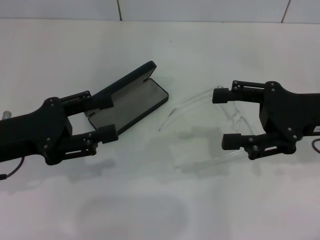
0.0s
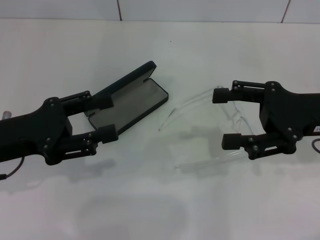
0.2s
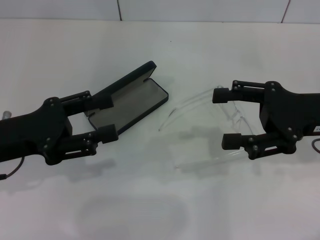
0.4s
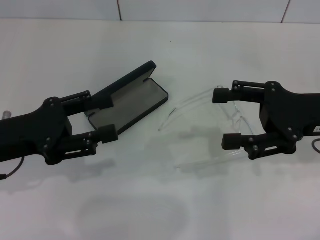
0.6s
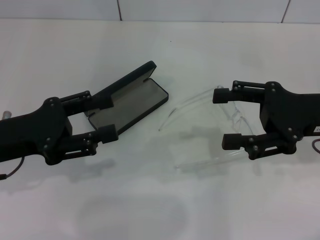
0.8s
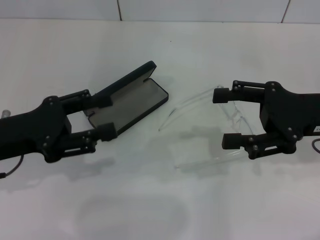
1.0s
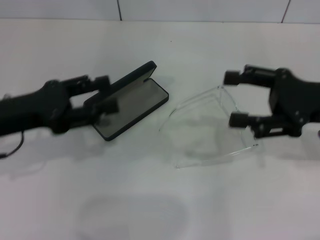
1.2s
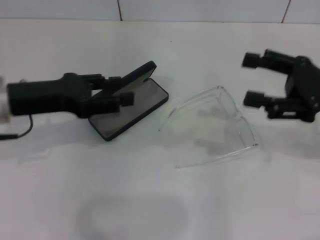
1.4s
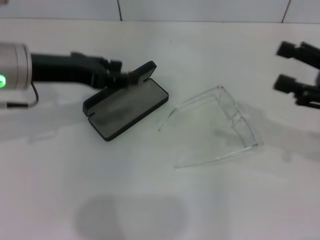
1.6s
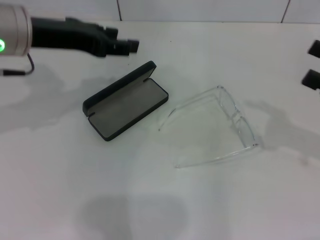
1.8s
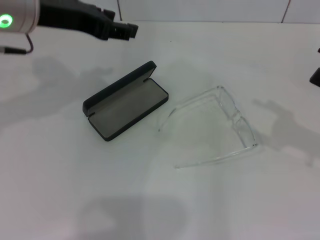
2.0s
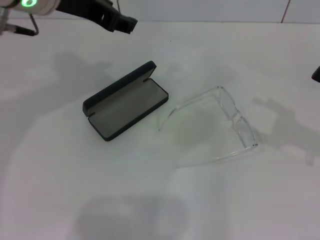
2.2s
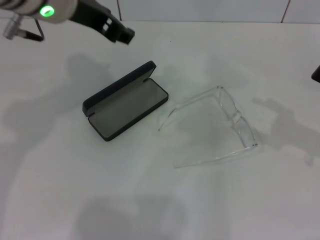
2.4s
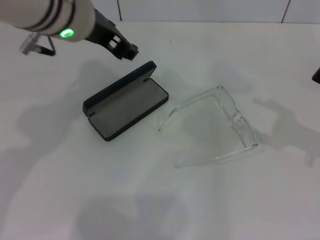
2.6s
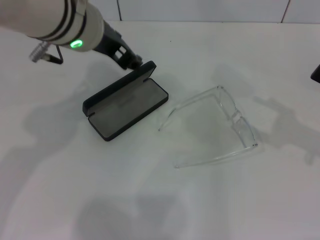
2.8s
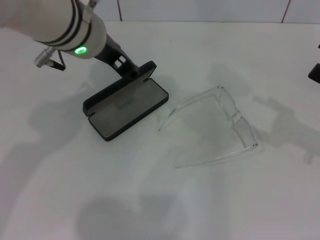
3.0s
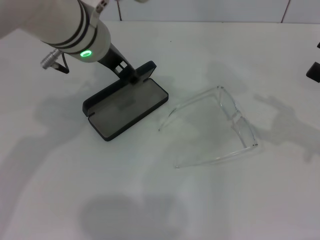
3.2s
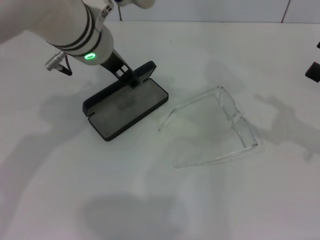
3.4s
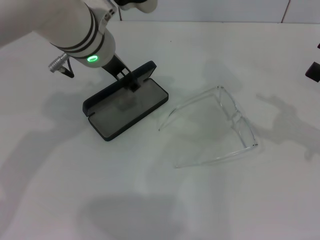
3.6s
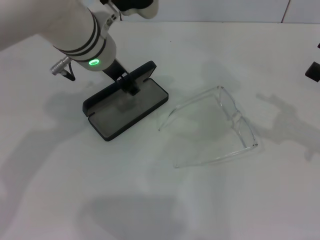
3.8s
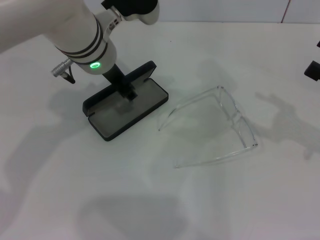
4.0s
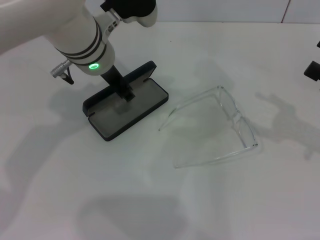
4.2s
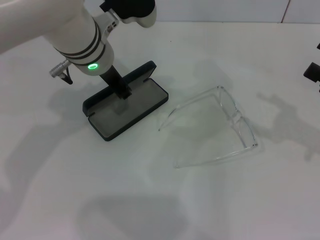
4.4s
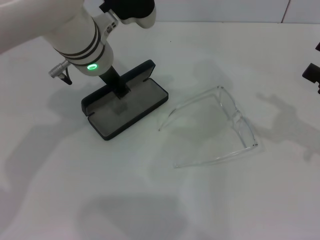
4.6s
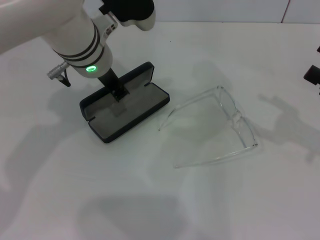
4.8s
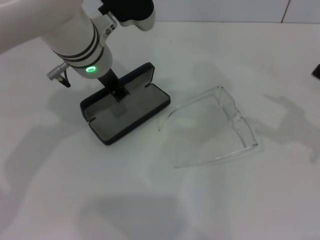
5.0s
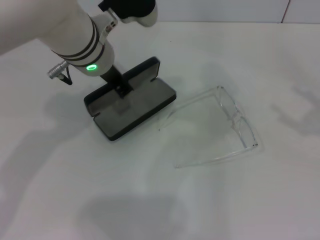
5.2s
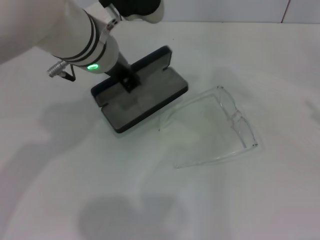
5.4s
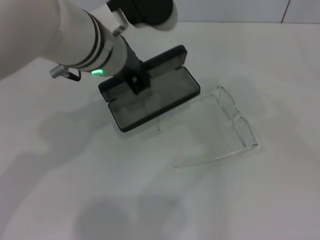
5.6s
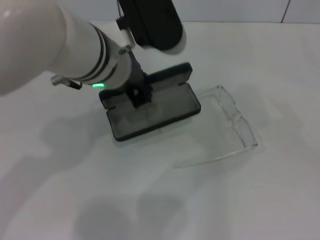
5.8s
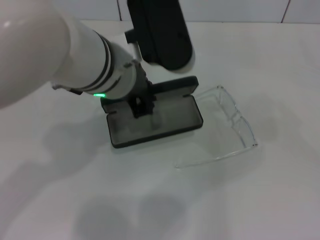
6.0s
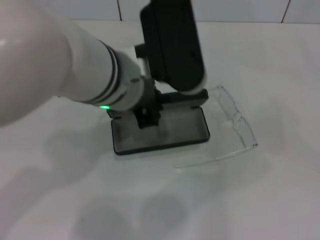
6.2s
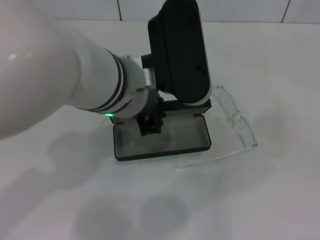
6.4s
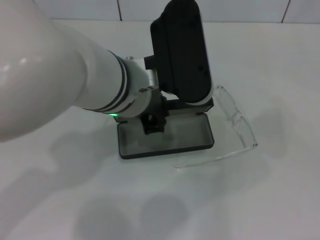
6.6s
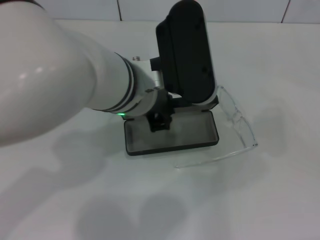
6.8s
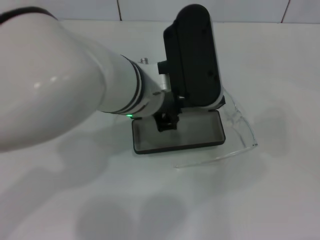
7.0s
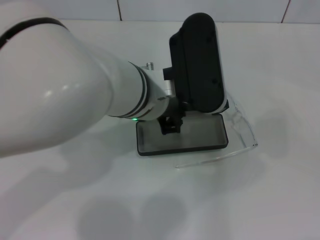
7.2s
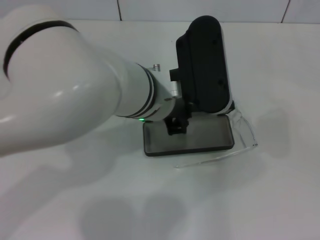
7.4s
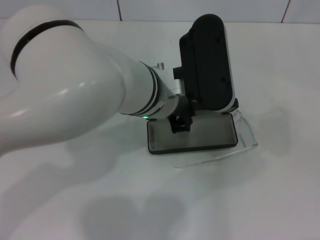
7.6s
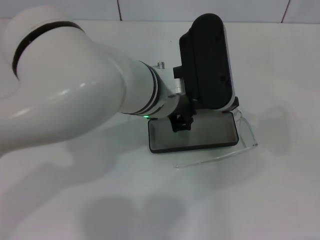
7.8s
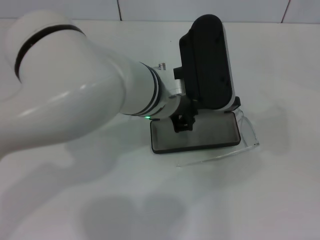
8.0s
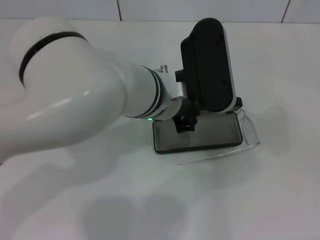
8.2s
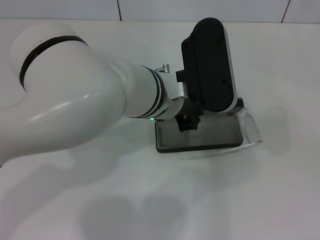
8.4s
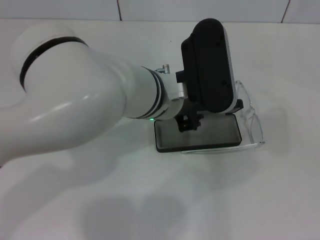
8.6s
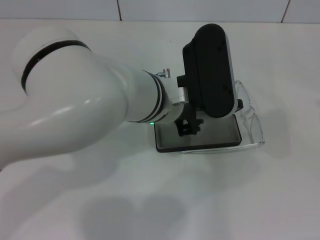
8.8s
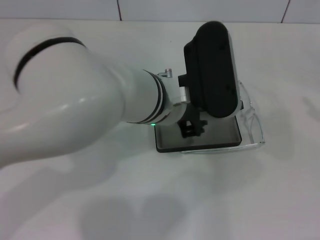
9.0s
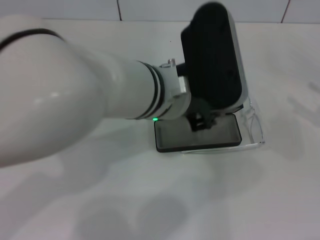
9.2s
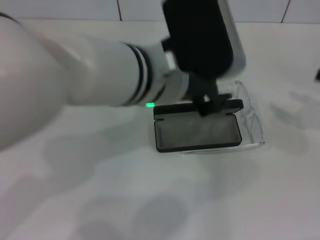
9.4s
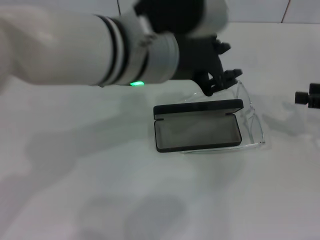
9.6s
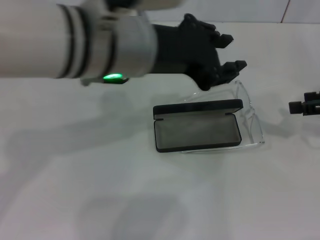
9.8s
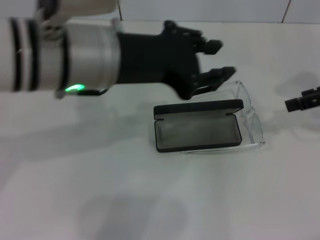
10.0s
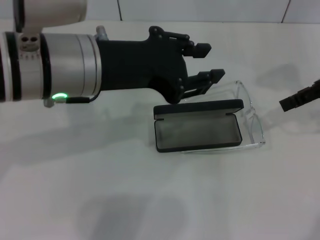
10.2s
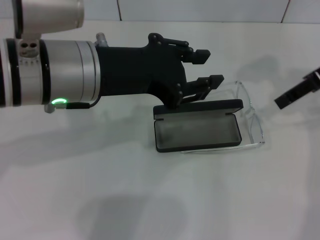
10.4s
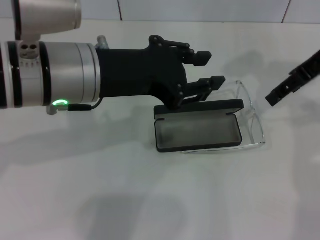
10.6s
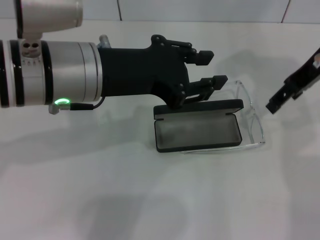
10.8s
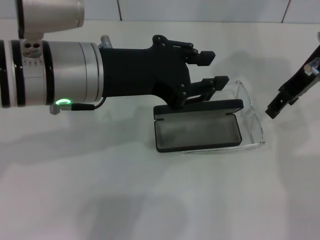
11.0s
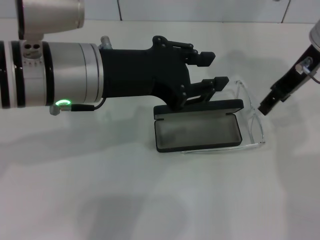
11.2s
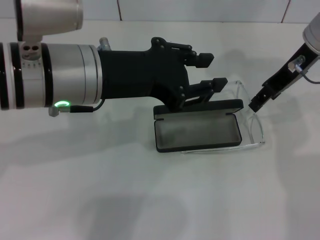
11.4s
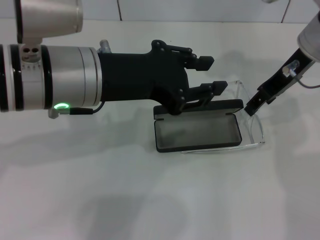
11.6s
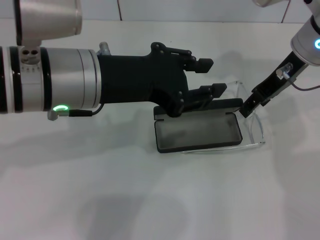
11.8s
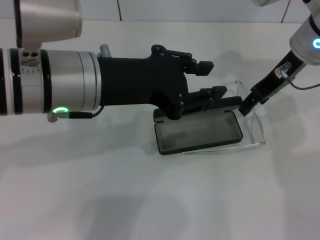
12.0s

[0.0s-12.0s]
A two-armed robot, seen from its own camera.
Step, 0.0s to 5.0s: Grab the glasses case with your left hand.
Step, 5.2s to 8.8s: Place the glasses case in the center of the table with your left hand.
0.0s to 1.6s: The right gripper goes about 5 cm to the right, while the left gripper is displaced forward, upward and to the right by about 10 cm.
1.6s to 3.0s: The left gripper goes roughly 10 cm to the right.
3.0s to 4.4s: The left gripper moves downward, approximately 5 cm.
4.4s to 6.0s: The left gripper travels backward by roughly 10 cm, and closes; the right gripper goes about 10 cm to the right and backward.
6.0s to 7.6s: The left gripper ends up about 5 cm from where it was.
7.6s to 9.0s: The grippers move only a little.
9.0s to 10.4s: The left gripper heads to the left and upward, covering approximately 10 cm; the right gripper moves to the left, upward and forward, some 25 cm.
10.4s to 12.0s: The right gripper heads to the left and downward, covering approximately 10 cm.

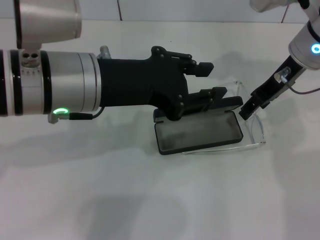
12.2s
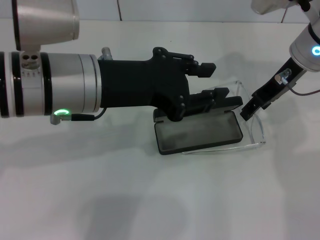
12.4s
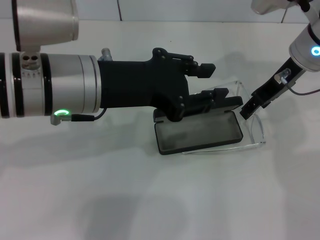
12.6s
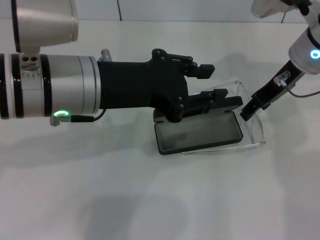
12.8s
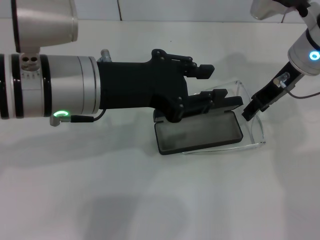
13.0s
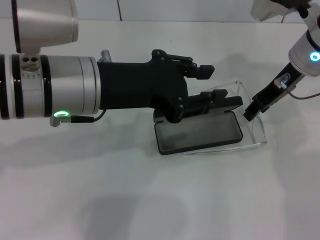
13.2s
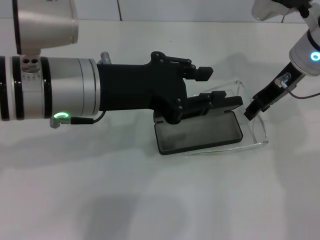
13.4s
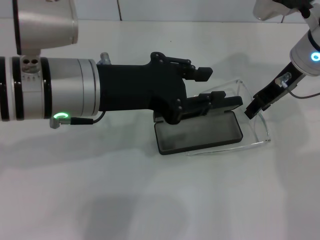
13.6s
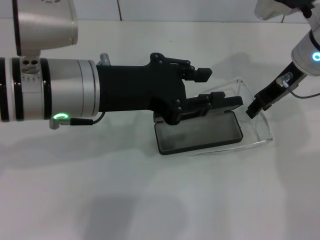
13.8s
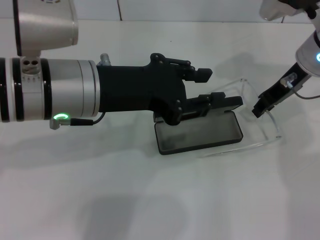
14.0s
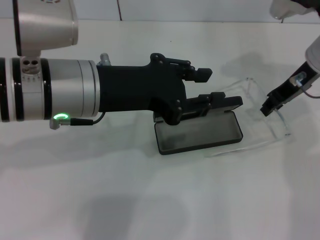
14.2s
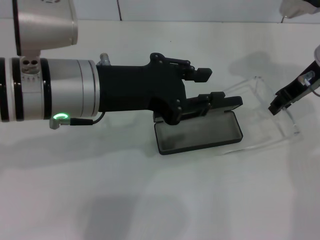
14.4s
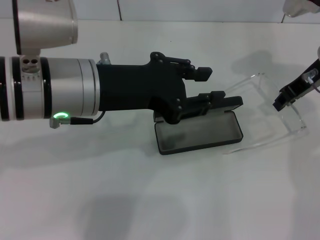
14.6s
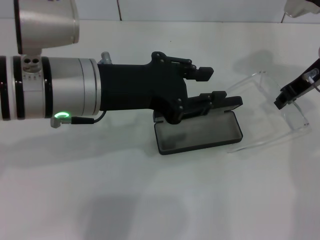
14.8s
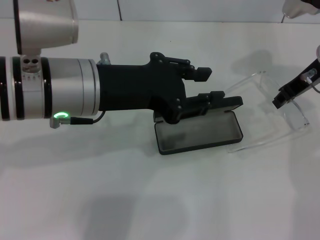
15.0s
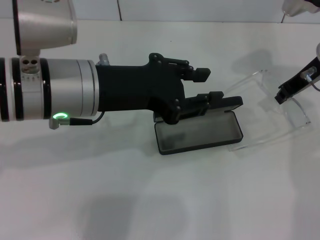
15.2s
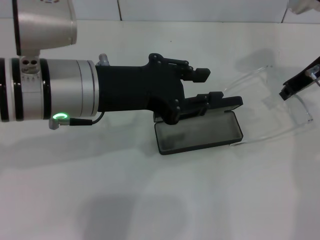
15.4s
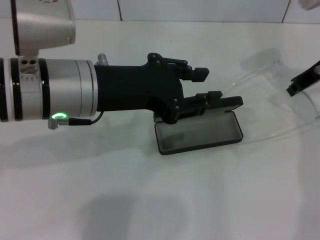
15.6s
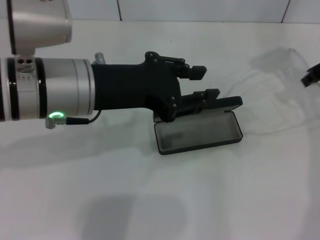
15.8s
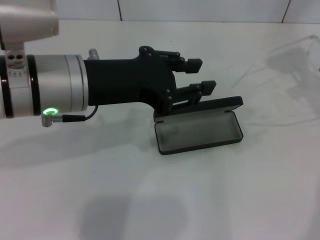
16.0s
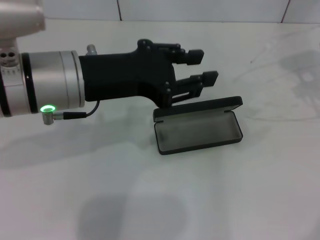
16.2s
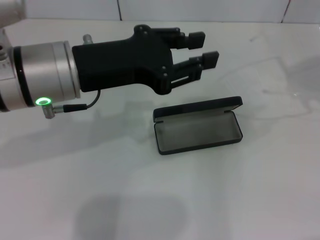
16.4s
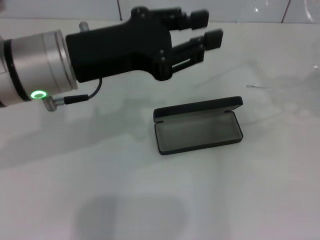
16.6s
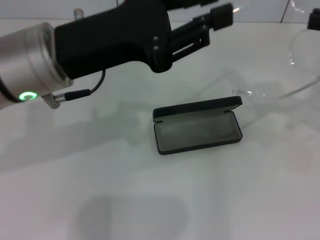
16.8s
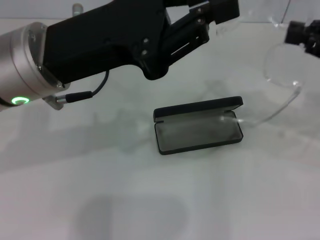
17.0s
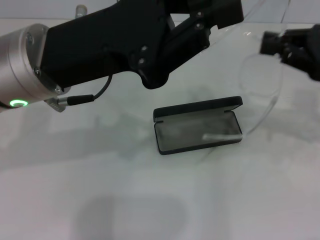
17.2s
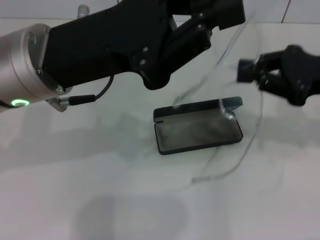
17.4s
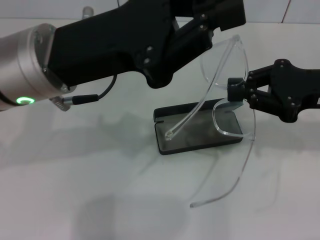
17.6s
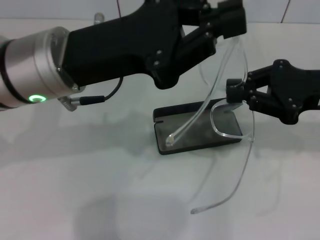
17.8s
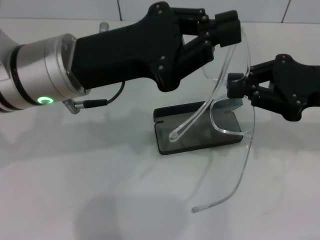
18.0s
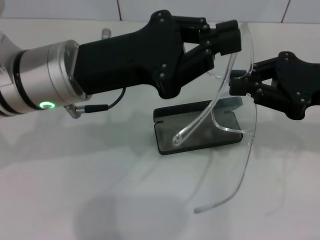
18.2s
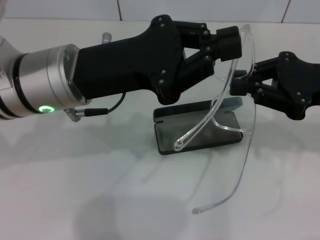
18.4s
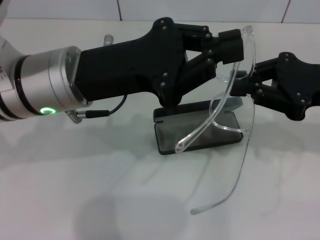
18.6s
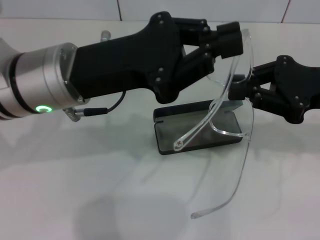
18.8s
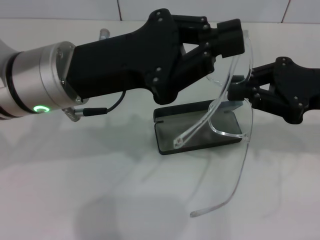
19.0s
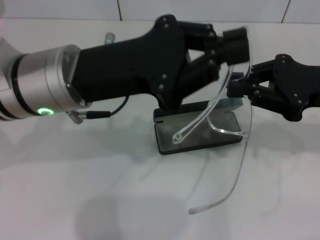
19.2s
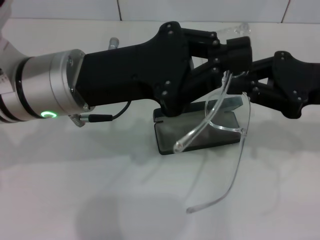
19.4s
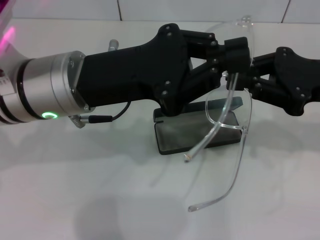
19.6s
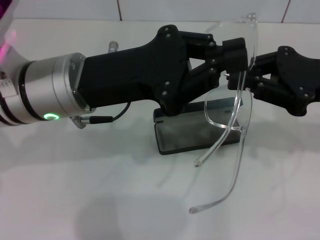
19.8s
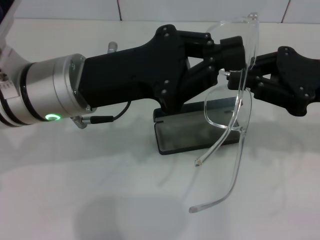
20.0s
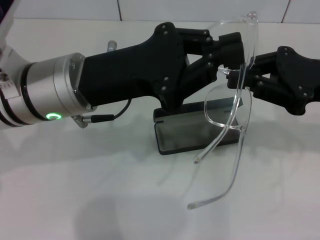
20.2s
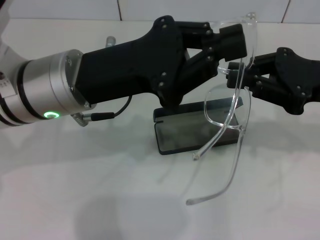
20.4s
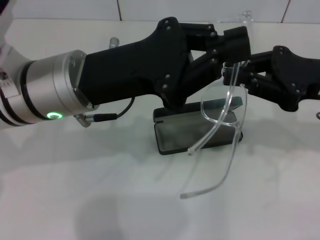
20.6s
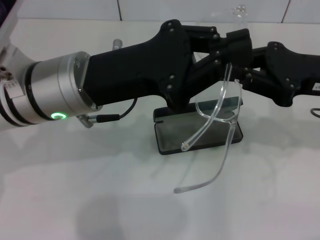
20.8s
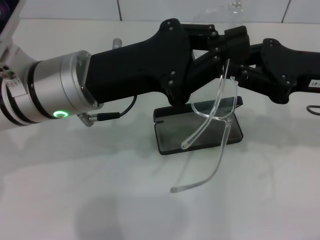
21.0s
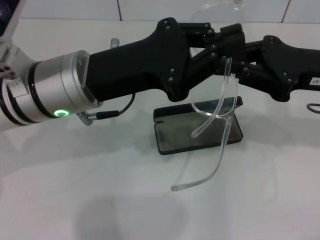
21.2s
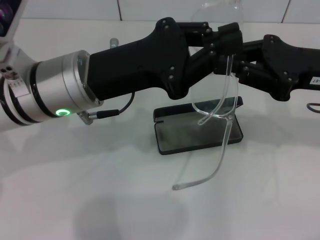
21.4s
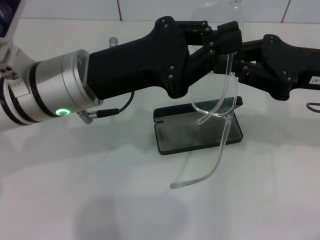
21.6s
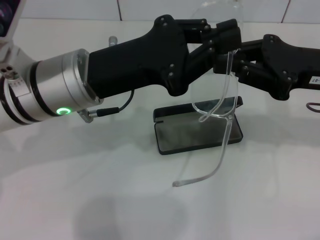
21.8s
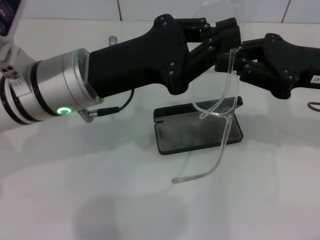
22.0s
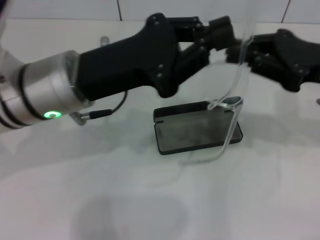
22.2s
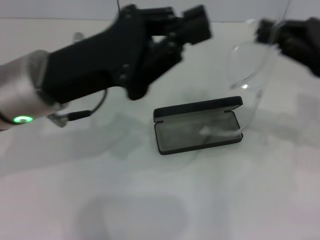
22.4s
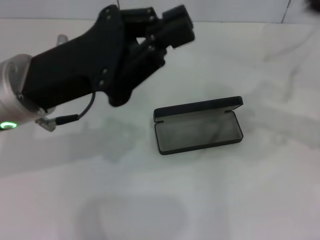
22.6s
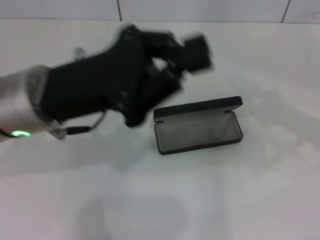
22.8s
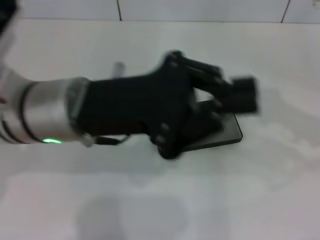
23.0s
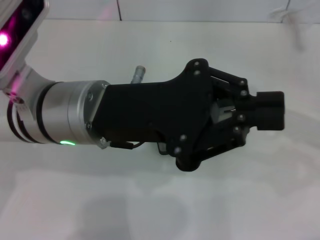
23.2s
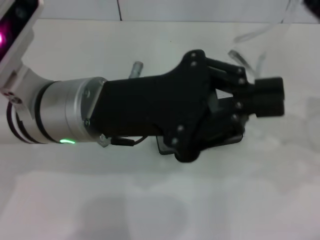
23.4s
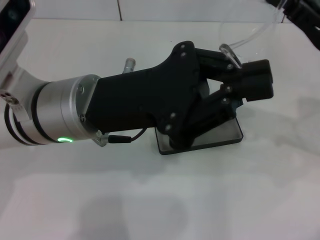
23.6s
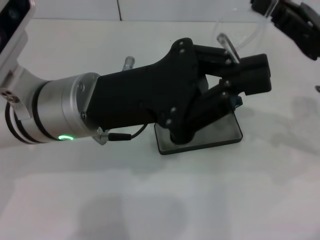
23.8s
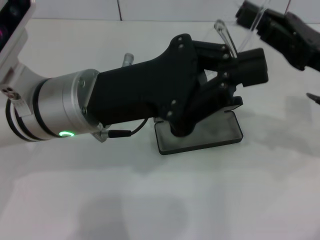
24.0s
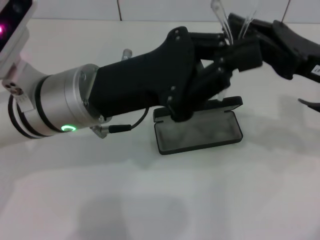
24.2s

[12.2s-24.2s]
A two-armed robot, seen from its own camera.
Step, 12.2s to 14.2s: Grab the eyeglass frame with your right hand.
12.2s to 15.2s: The grippers stay close to where they were, moving slightly.
15.2s to 16.6s: The right gripper heads to the right, backward and upward, covering roughly 15 cm.
16.6s to 18.2s: The right gripper moves to the left and downward, roughly 10 cm. Meanwhile the left gripper closes.
19.8s to 21.2s: The grippers move only a little.
21.2s to 22.6s: The right gripper travels to the right by about 5 cm.
22.6s to 24.2s: The right gripper shifts approximately 10 cm to the left; the left gripper heads to the right, covering about 5 cm.
